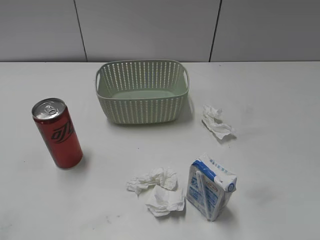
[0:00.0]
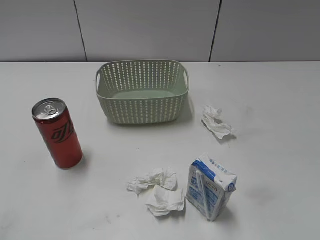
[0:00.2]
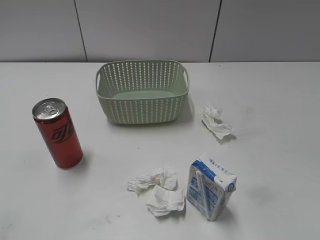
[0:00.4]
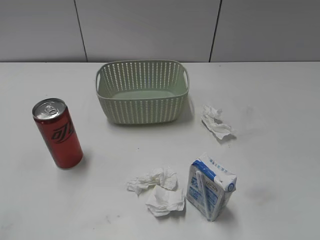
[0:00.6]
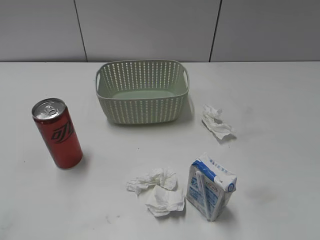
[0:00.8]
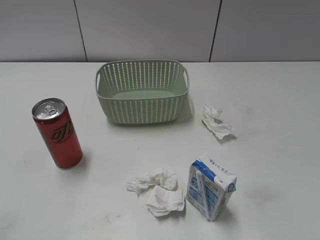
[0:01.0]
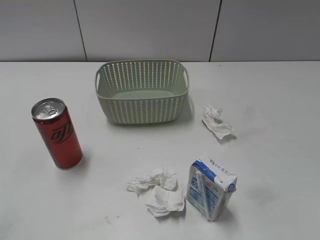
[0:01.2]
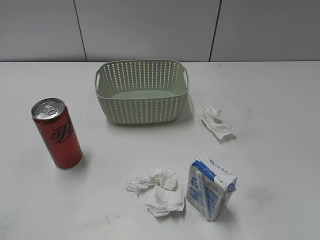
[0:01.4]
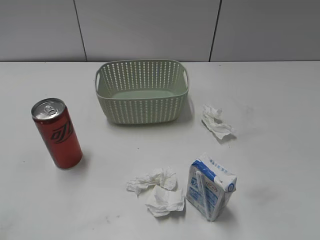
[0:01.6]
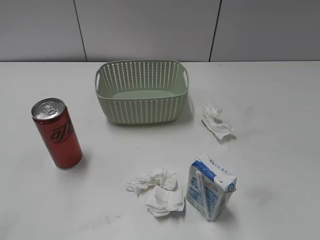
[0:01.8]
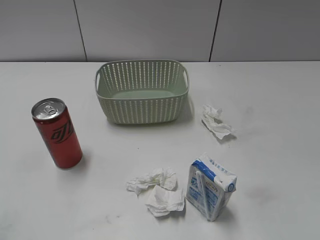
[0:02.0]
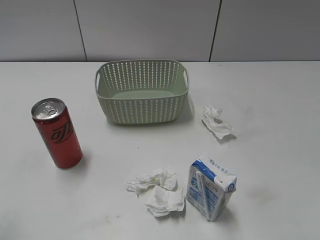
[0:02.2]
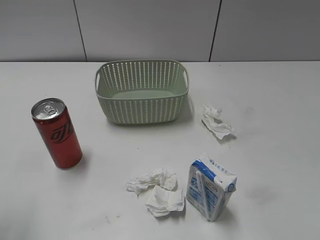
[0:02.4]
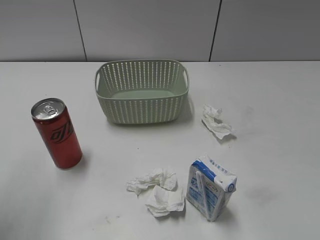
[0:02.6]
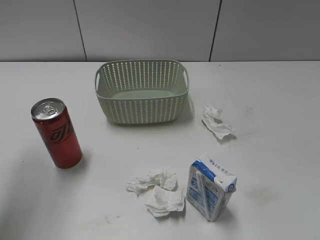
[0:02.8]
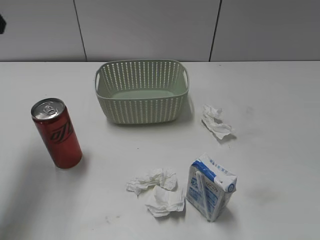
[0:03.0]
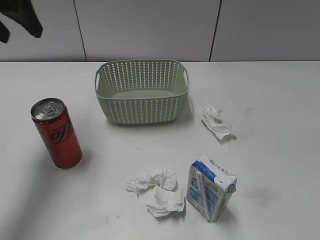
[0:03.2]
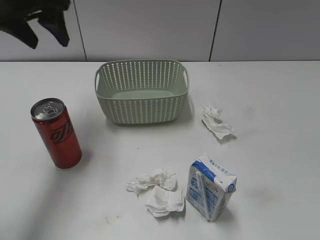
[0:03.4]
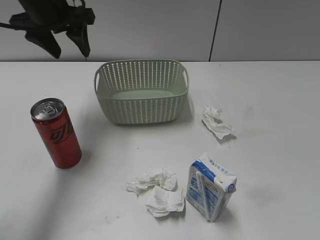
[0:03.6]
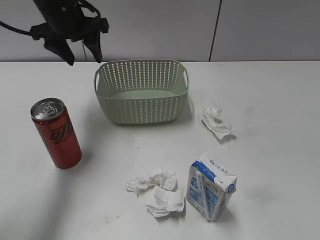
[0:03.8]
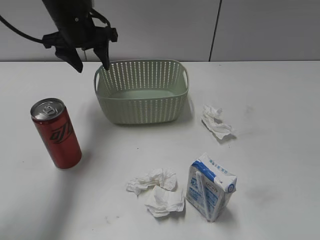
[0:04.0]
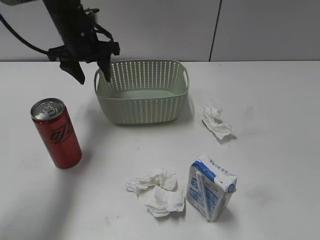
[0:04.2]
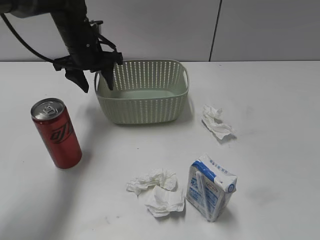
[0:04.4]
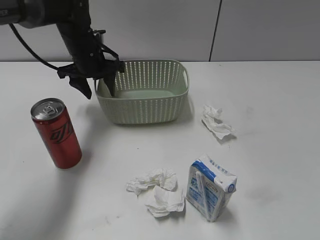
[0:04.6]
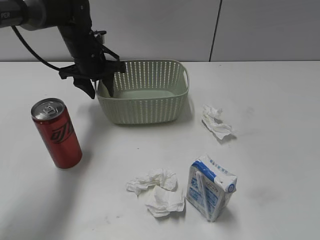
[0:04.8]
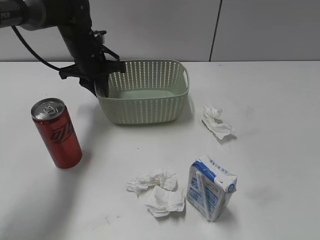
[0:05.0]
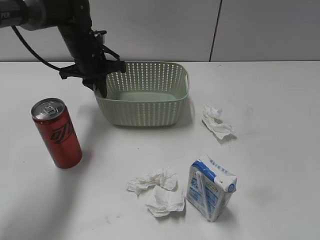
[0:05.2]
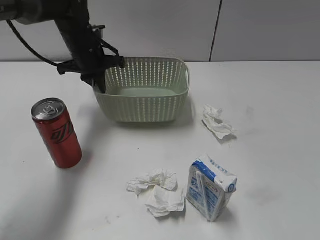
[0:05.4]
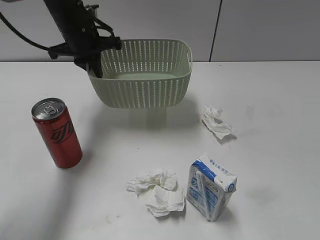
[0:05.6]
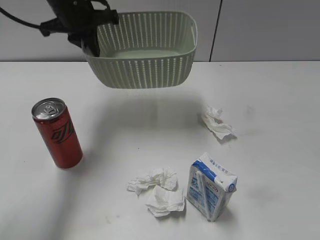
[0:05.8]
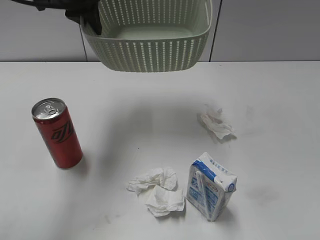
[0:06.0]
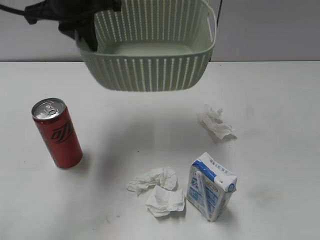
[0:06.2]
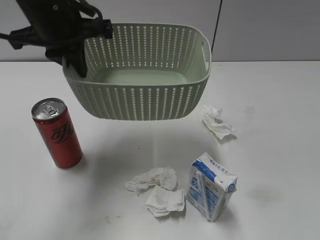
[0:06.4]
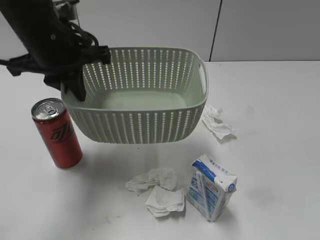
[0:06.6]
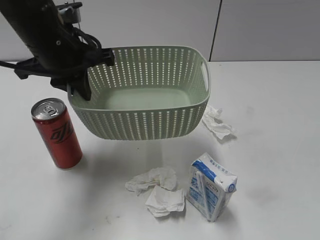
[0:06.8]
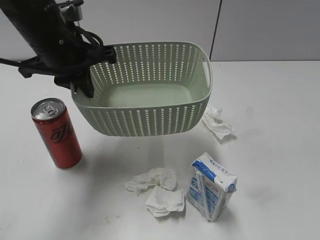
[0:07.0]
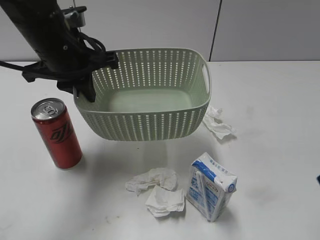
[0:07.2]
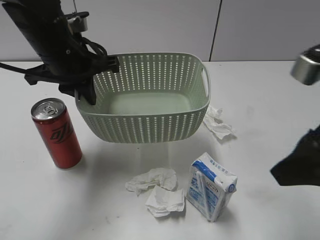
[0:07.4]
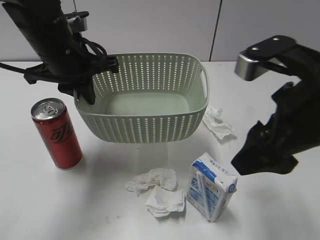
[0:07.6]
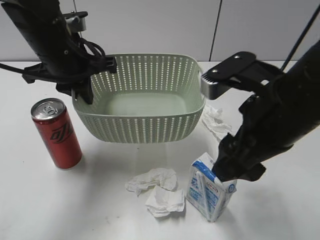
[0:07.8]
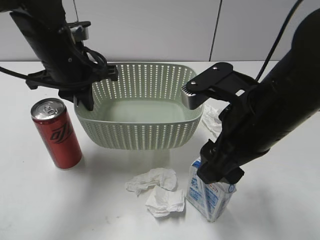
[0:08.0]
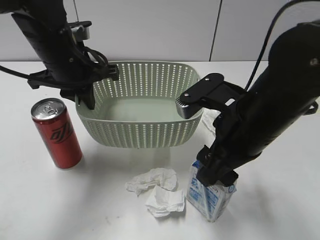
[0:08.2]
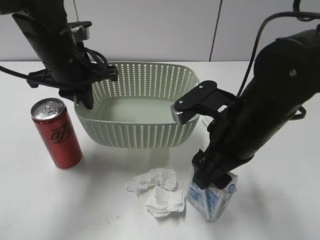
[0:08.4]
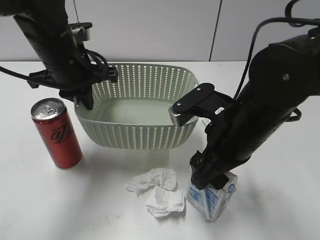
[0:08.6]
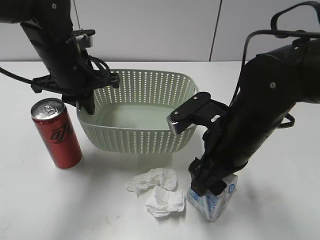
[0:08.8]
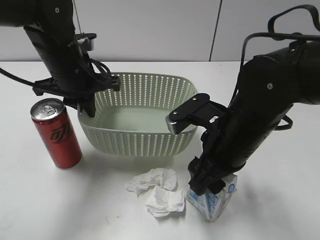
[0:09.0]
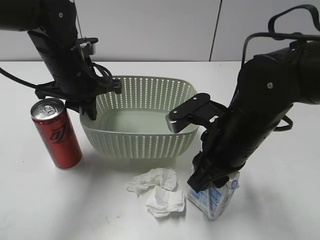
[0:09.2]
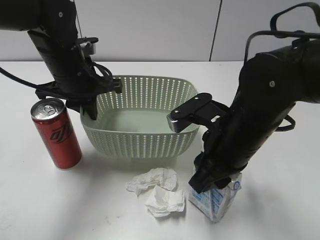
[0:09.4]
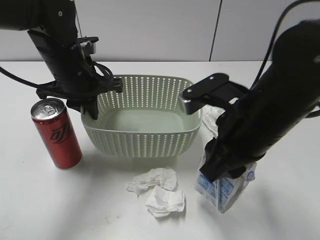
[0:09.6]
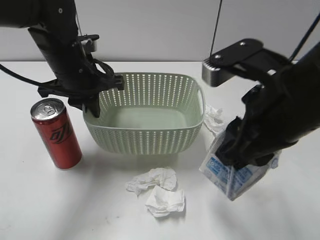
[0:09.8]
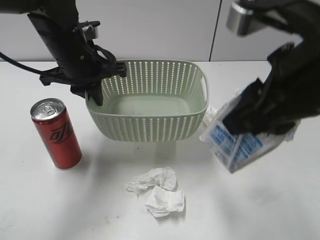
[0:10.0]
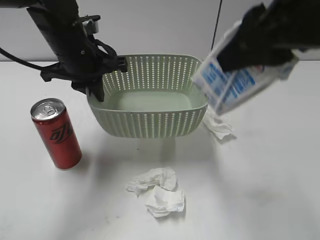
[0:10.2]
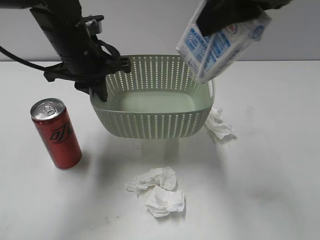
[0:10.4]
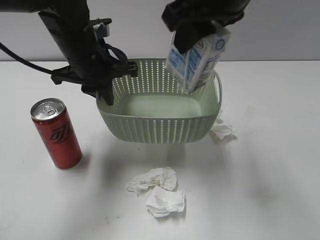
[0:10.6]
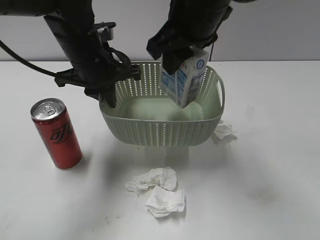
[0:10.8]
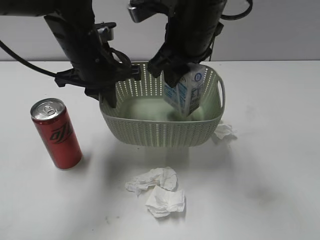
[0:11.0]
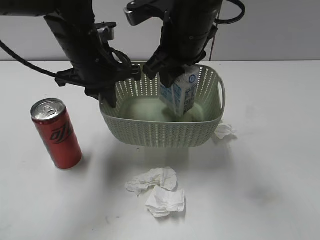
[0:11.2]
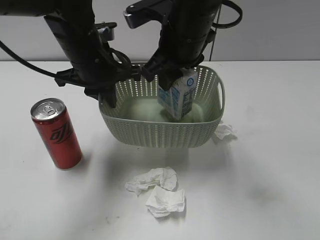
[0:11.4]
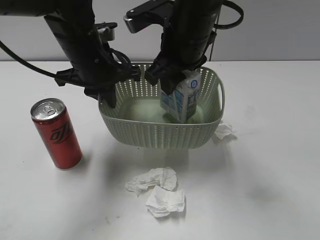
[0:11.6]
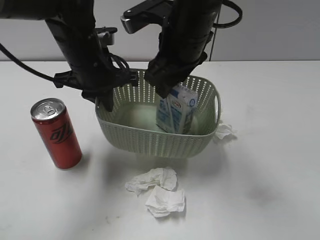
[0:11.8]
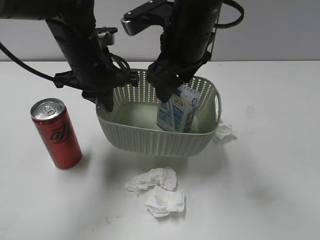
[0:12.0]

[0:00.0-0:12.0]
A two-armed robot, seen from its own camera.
Step, 3.0 to 5.0 s: Grasp the basket with left gripper.
Step, 5.2 to 7.0 s: Lift the basket with left gripper.
Step, 7.2 to 9.4 s: Grasp the milk with right gripper.
1.6 to 3.0 s: The left gripper goes about 30 cm forward.
3.0 to 4.4 s: The left gripper heads downward, forward and to the right, covering approximately 30 cm.
4.4 to 6.0 s: The left gripper heads upward and backward, covering roughly 15 cm, and closes its fingers.
6.0 to 7.6 s: The right gripper goes approximately 25 cm forward and to the left, while the left gripper goes approximately 10 cm downward and backward.
7.6 to 9.0 s: The right gripper goes approximately 10 cm downward and to the left.
9.0 to 10.4 s: The right gripper moves upward, some 20 cm, and closes.
10.4 to 12.0 s: The right gripper heads downward, forward and to the left, covering about 15 cm, and opens up.

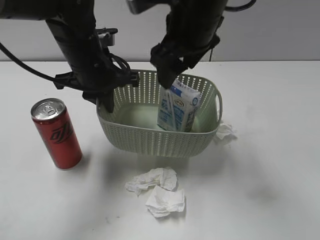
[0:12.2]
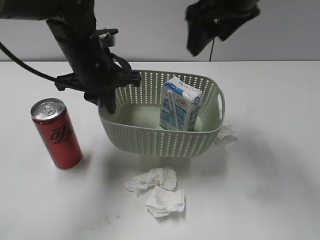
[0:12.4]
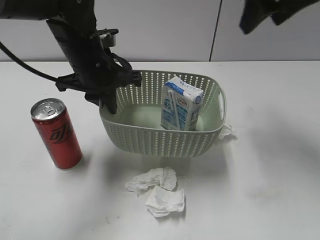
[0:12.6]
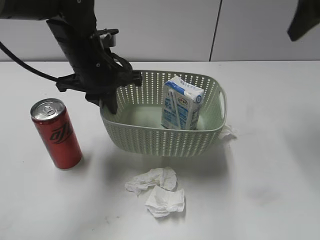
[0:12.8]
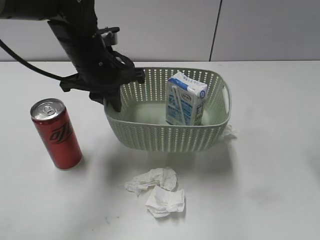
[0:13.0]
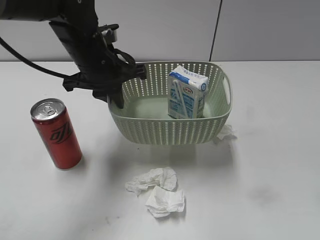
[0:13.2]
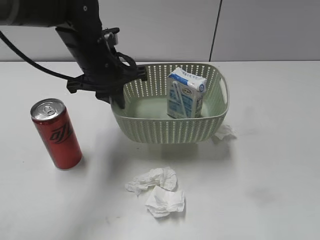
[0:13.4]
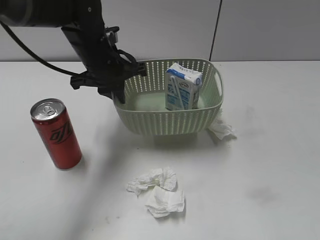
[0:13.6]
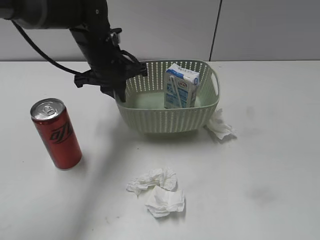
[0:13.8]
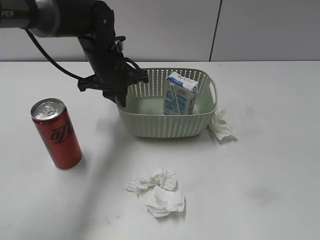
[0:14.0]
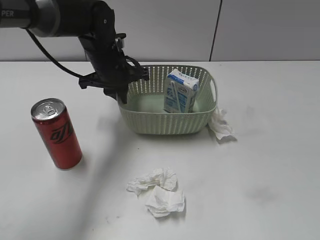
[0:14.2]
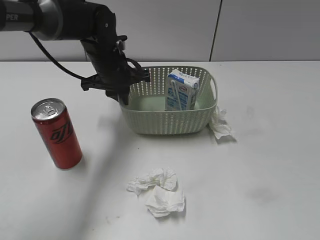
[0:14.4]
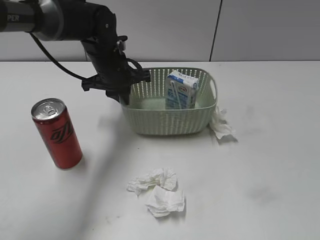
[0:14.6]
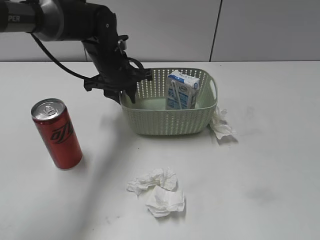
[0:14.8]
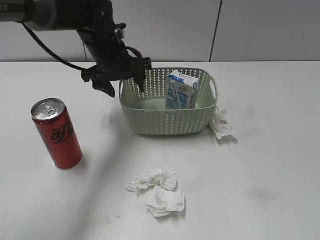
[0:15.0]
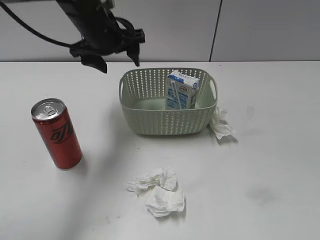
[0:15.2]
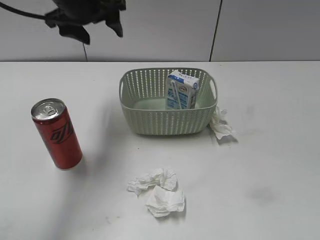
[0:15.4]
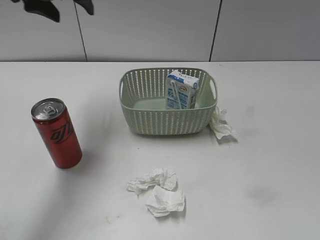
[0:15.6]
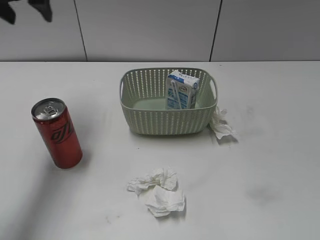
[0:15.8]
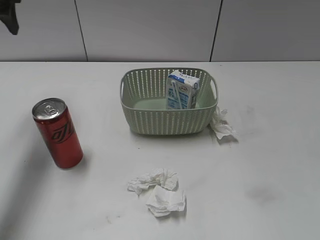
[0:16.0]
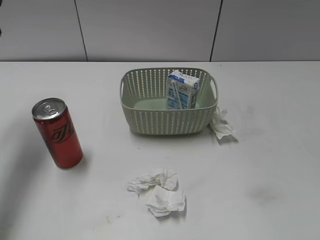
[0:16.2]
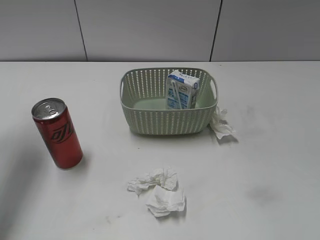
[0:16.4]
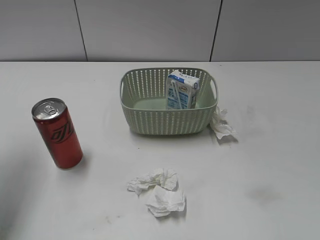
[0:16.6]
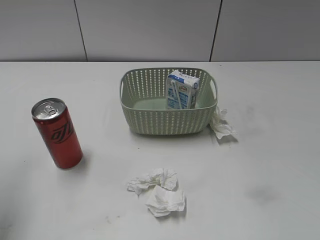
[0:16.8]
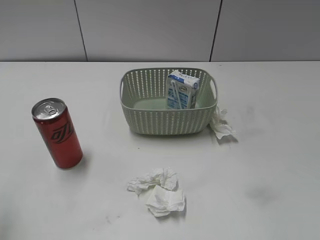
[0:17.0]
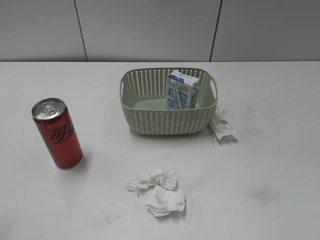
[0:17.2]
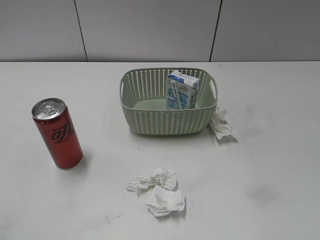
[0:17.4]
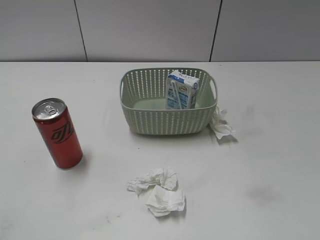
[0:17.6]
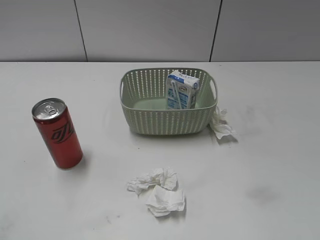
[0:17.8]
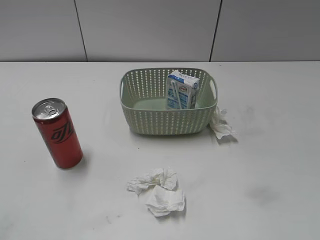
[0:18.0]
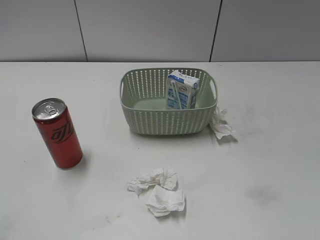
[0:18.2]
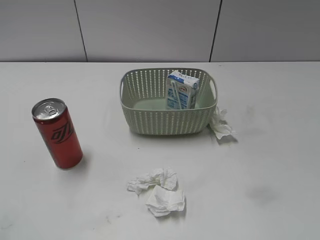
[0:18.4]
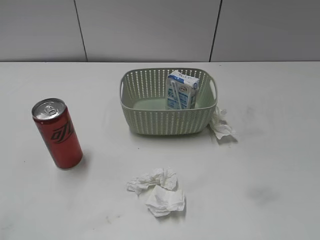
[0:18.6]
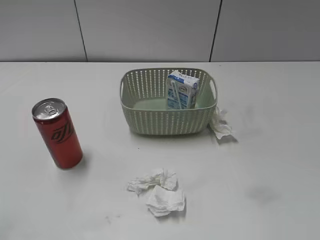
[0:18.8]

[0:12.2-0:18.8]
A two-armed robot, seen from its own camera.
Step, 12.6 to 14.8 s: Place the basket on the table with left gripper.
12.2 to 13.8 s: The right gripper is displaced backward and to the right by roughly 40 cm. The left gripper is displaced forward by roughly 5 cm.
13.8 to 15.4 s: The left gripper heads upward, covering some 10 cm, and opens up.
15.4 to 17.2 s: The left gripper moves backward and to the left, approximately 35 cm.

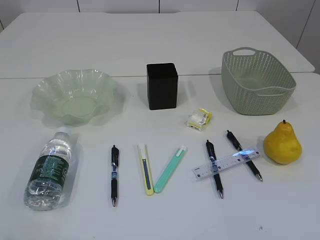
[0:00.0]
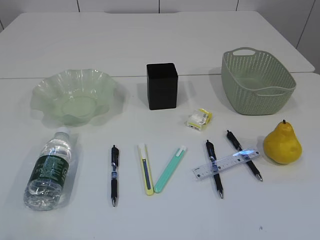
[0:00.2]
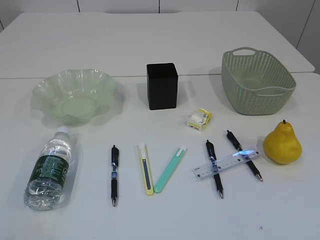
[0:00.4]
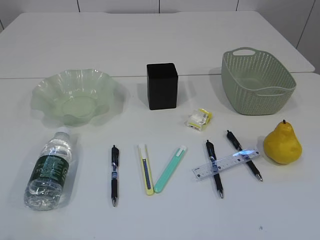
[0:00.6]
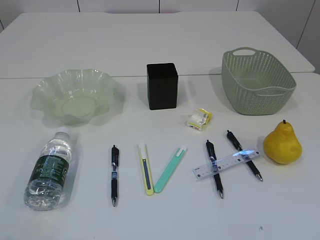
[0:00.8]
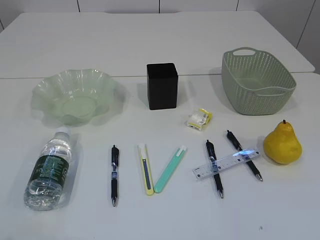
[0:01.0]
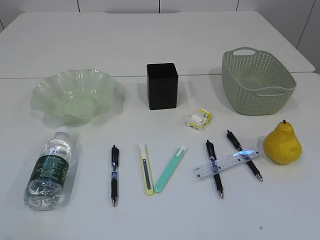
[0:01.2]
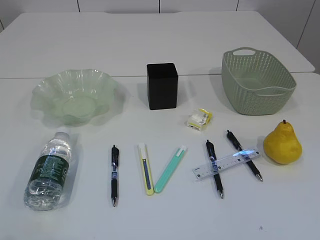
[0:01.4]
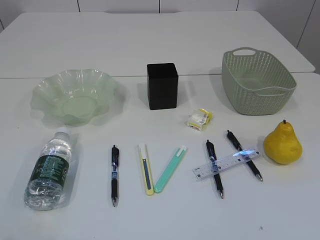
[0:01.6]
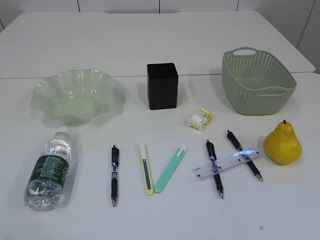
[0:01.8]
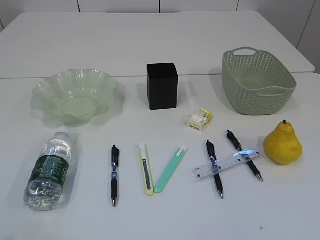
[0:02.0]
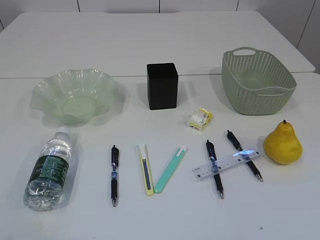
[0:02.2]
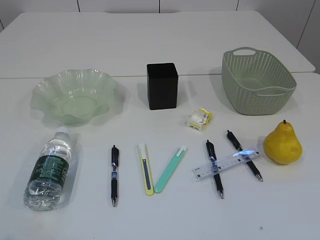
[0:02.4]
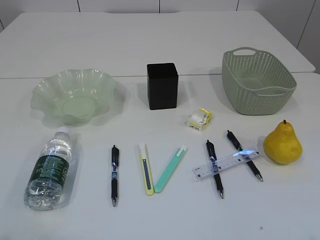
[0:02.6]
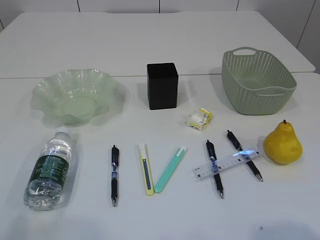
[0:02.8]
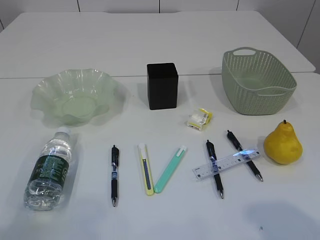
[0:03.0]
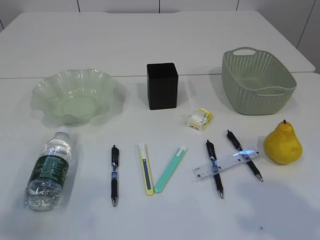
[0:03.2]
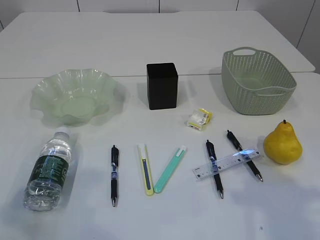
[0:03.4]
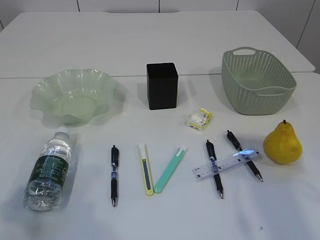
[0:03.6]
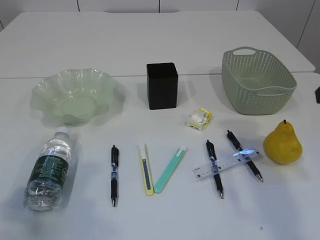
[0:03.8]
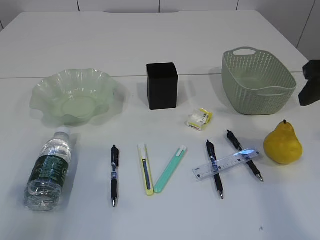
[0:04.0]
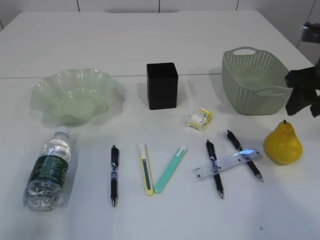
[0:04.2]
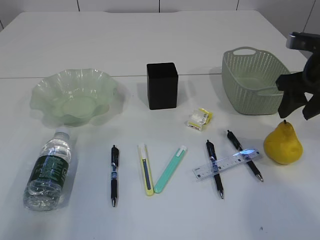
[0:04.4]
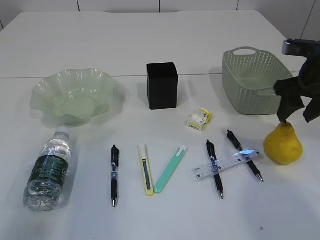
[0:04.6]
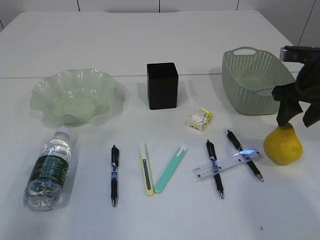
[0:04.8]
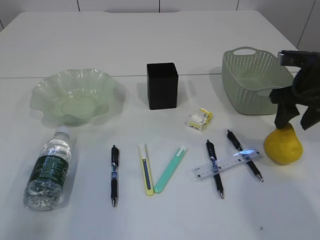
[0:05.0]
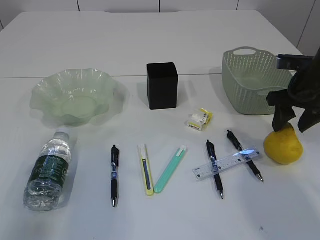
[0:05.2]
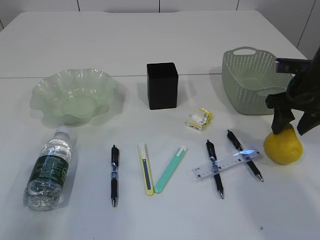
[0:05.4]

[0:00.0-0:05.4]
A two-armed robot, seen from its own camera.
2.8 to 4.0 s: The left gripper goes roughly 15 cm forward, while the right gripper is displaced forward by approximately 25 cm.
4.0 to 5.4 s: The right gripper goes approximately 15 cm downward and forward.
